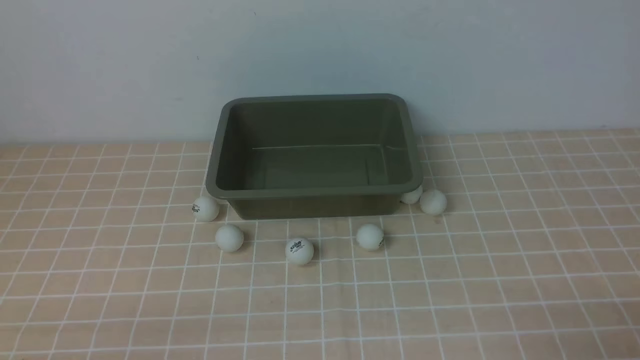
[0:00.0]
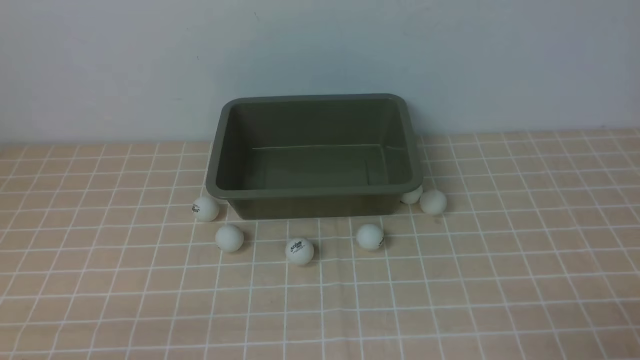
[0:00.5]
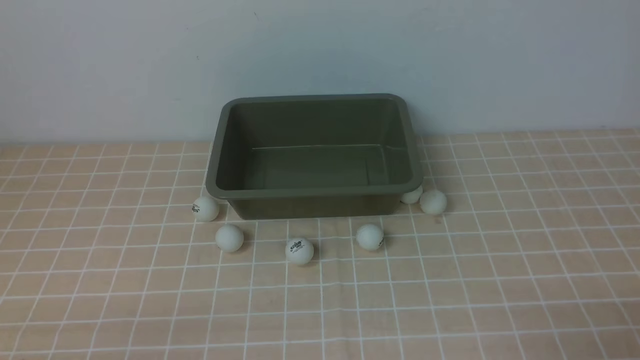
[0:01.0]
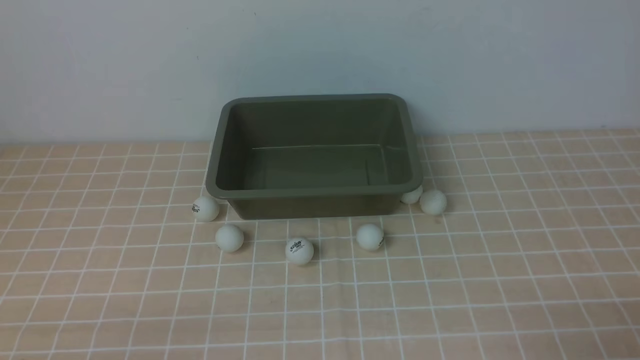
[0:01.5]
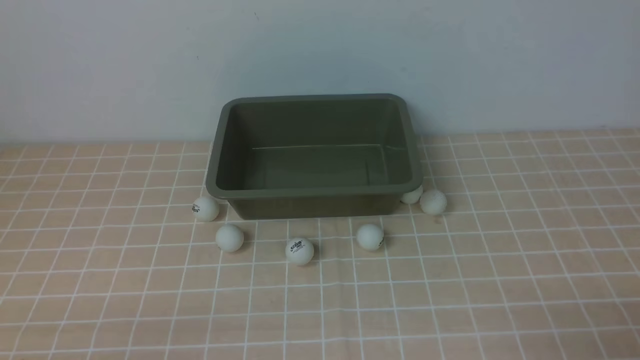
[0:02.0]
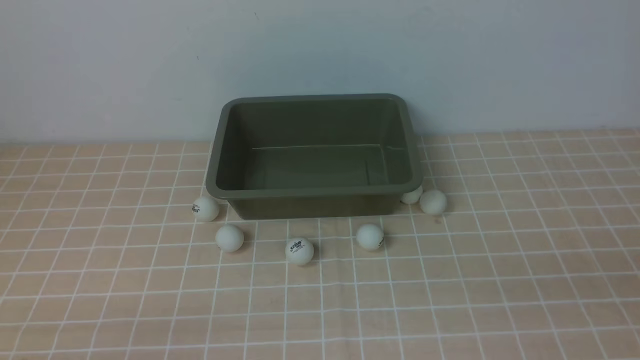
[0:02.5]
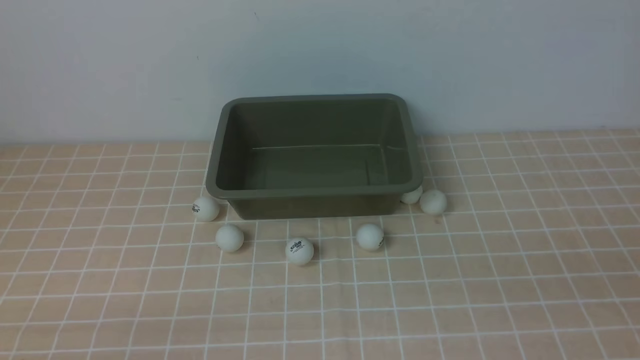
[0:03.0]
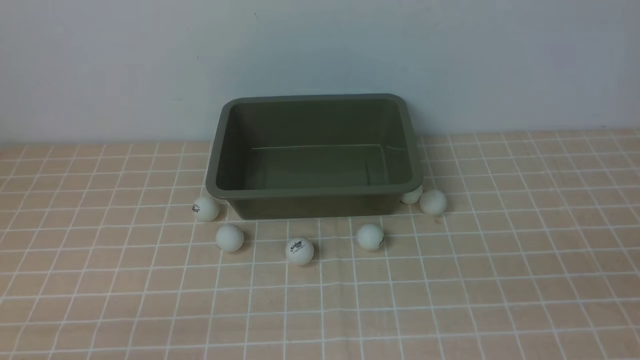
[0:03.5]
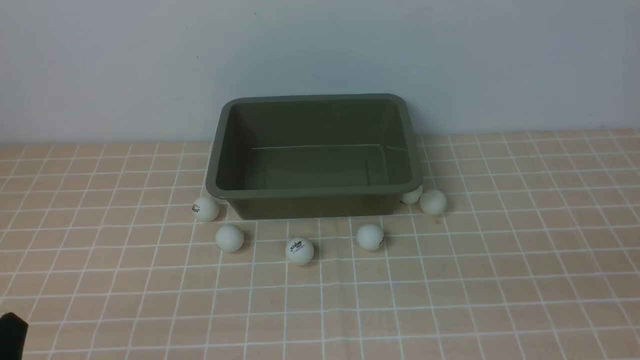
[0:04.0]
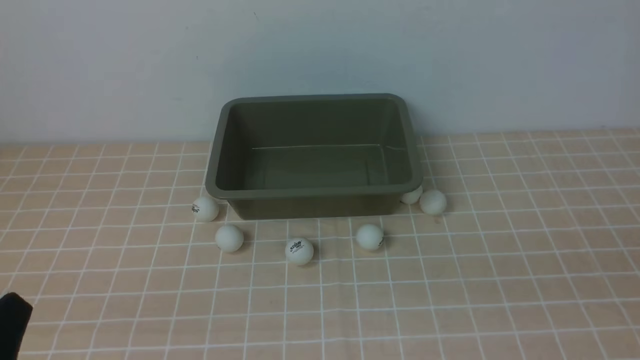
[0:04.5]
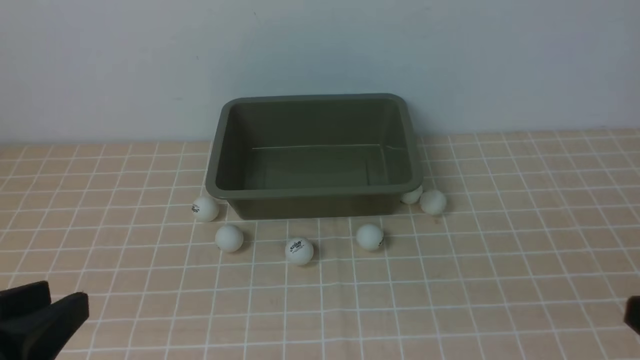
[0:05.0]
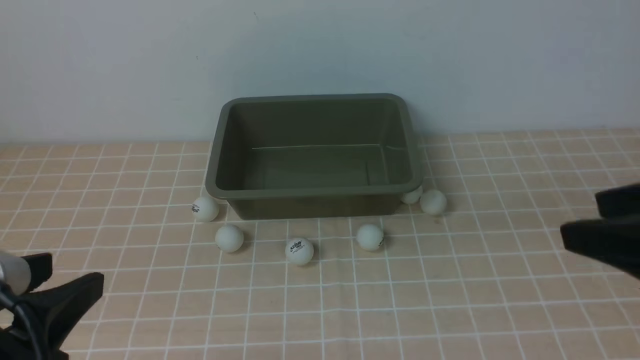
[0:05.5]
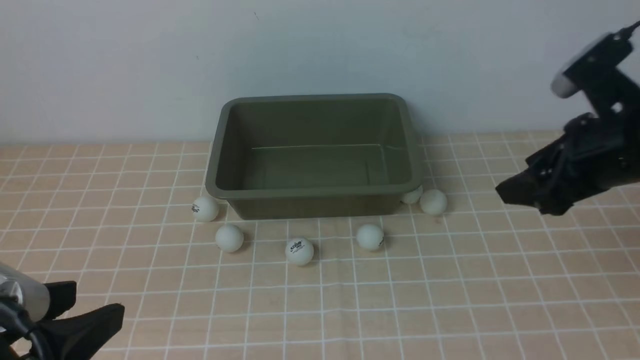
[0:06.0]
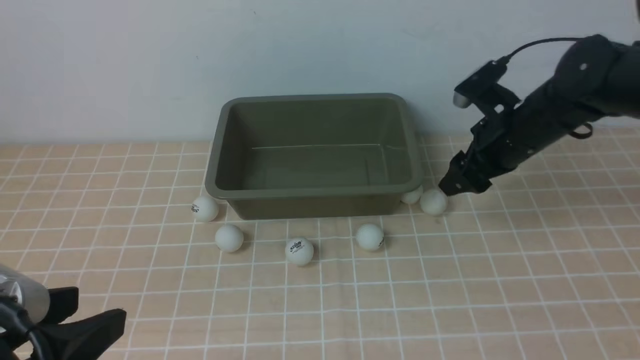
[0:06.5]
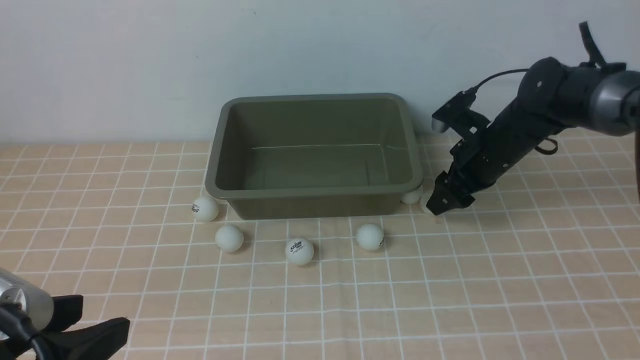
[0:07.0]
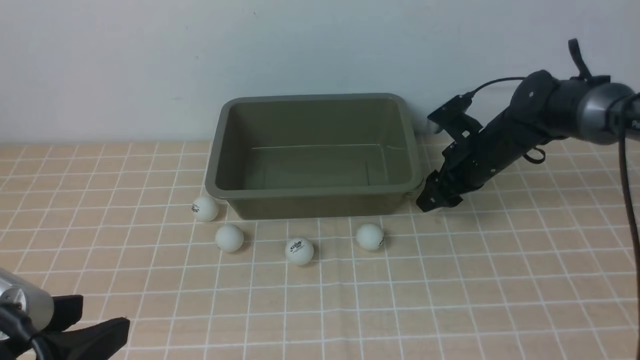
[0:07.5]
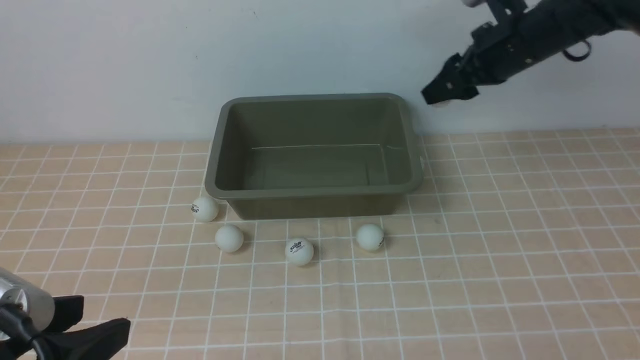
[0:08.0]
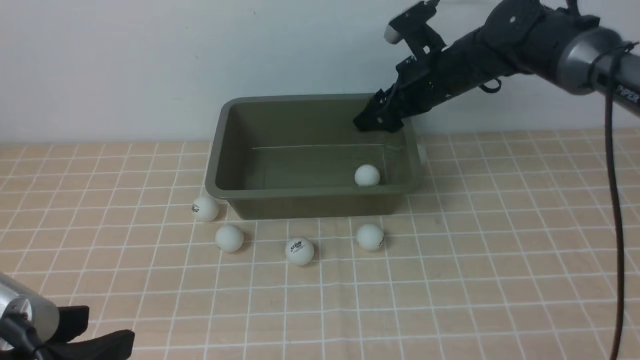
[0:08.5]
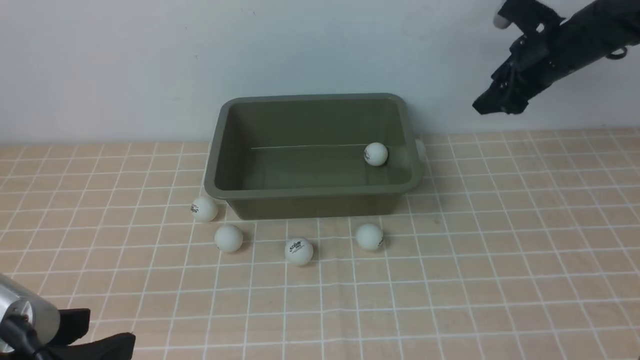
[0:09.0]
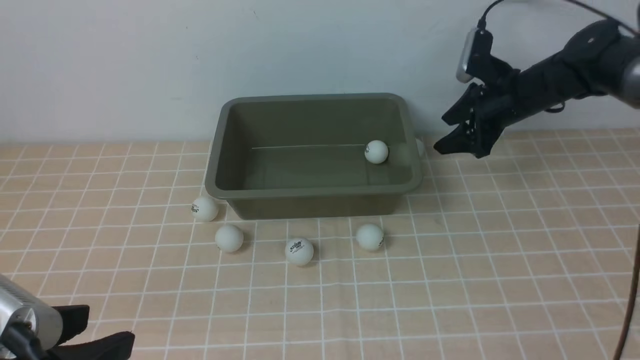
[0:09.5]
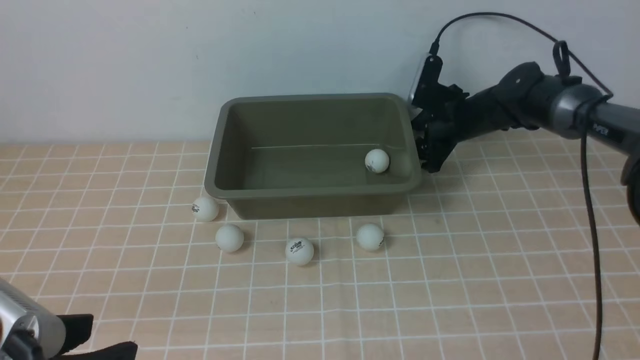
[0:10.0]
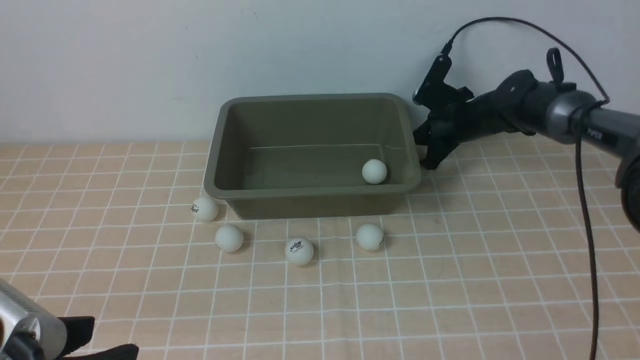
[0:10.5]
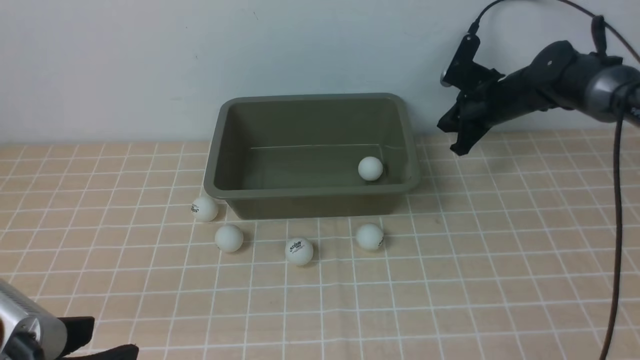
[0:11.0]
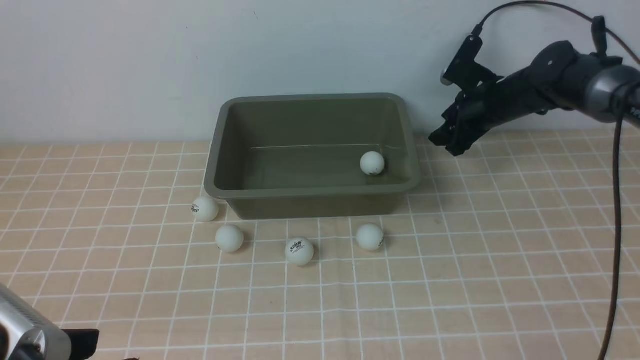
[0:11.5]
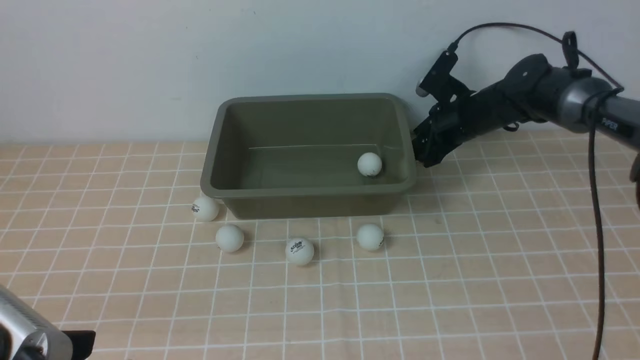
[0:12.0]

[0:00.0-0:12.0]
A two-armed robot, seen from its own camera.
Step, 0:00.0 to 0:07.5: use the right arm to clamp the table tennis ball closest to it.
Step, 0:08.0 to 0:08.5: use the right arm to put the table tennis ball into the box.
0:00.0 to 0:02.0: Both grippers stay about where they are.
0:04.0 to 0:06.0: The right gripper is displaced forward by approximately 30 cm, and opens its fingers. The left gripper is displaced upward by approximately 10 cm, and opens up.
0:06.0 to 0:08.0: The right gripper moves forward, roughly 15 cm.
0:08.0 to 0:10.0: The right gripper travels downward and forward by about 15 cm.
0:10.0 to 0:12.0: The right gripper closes, then opens again.

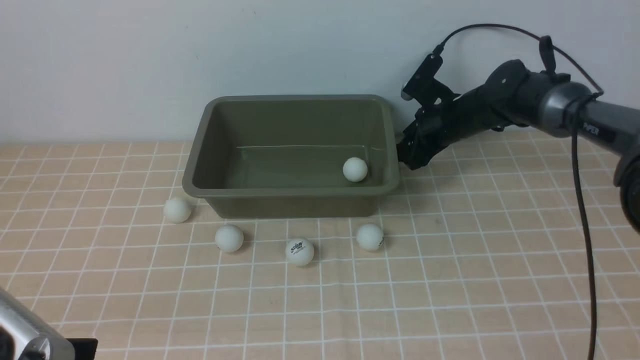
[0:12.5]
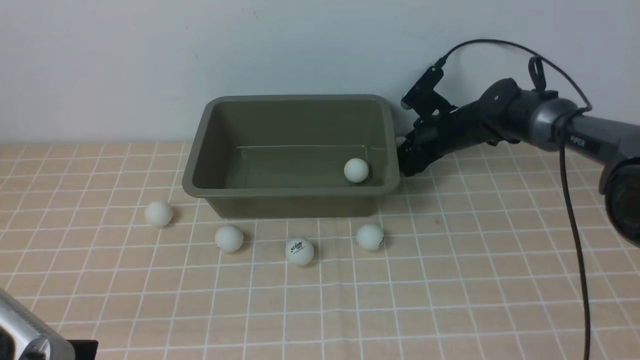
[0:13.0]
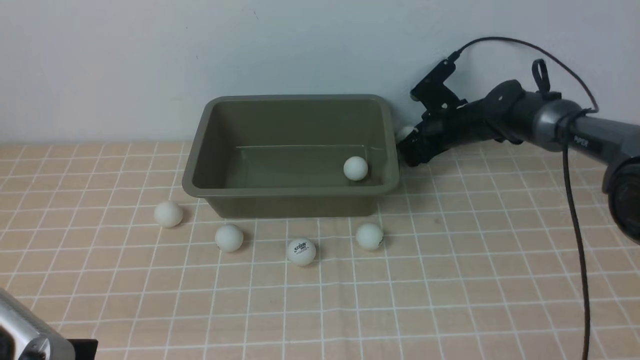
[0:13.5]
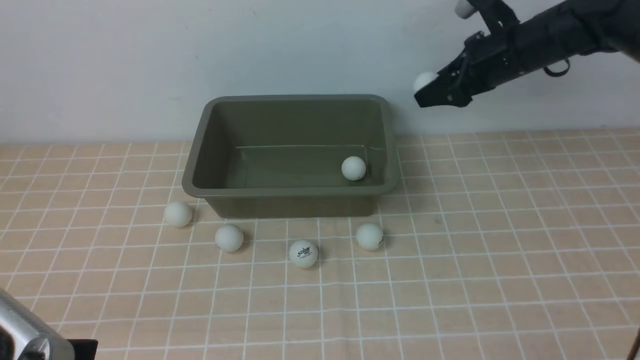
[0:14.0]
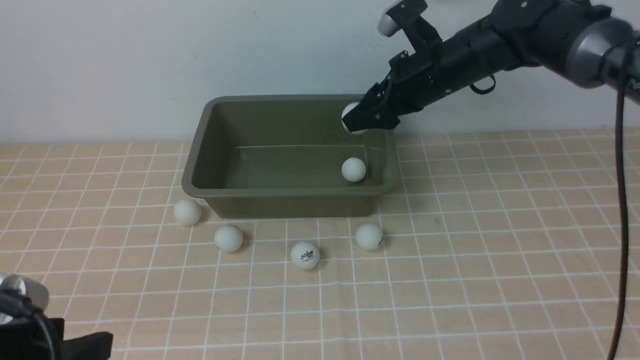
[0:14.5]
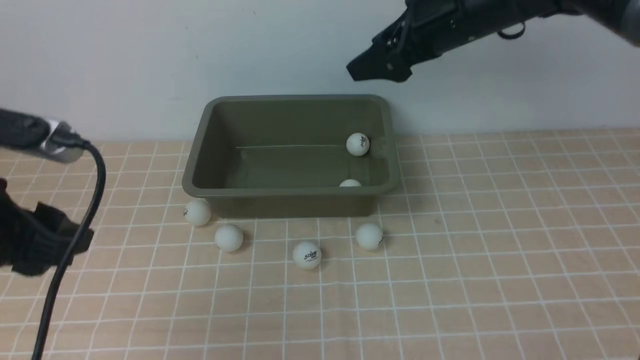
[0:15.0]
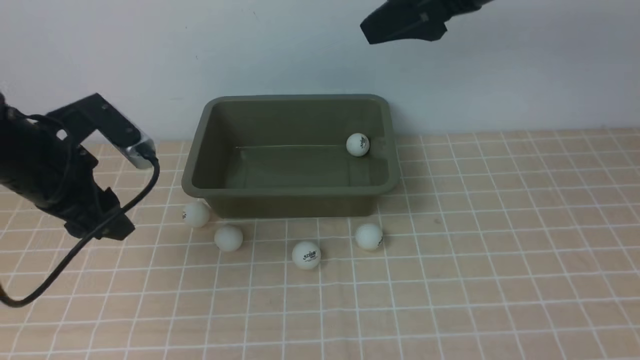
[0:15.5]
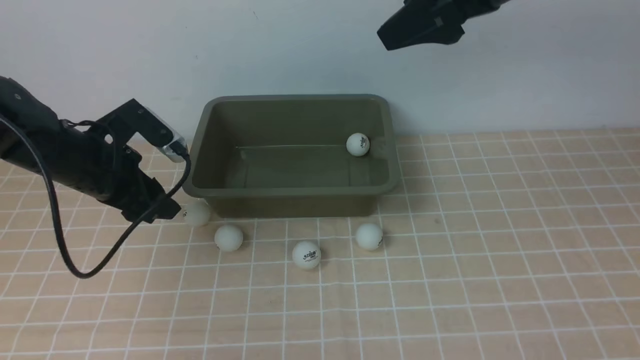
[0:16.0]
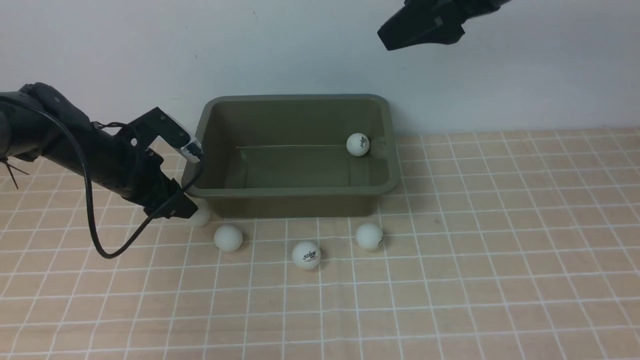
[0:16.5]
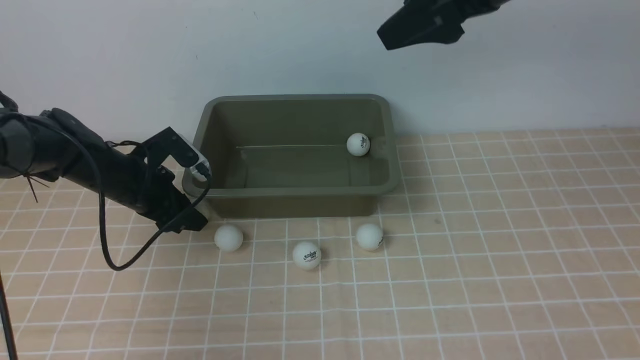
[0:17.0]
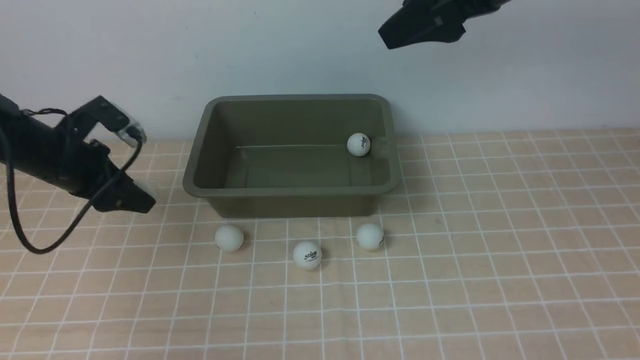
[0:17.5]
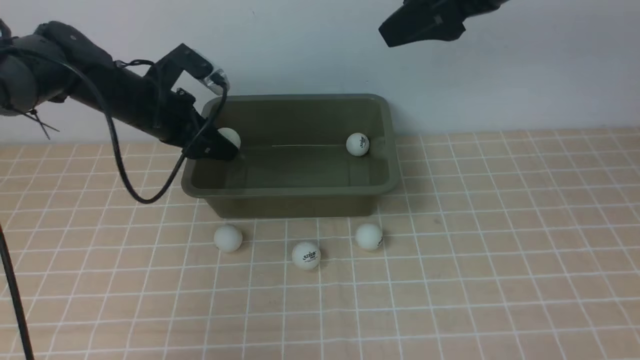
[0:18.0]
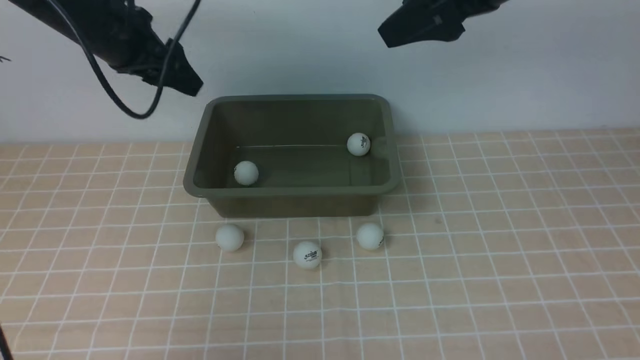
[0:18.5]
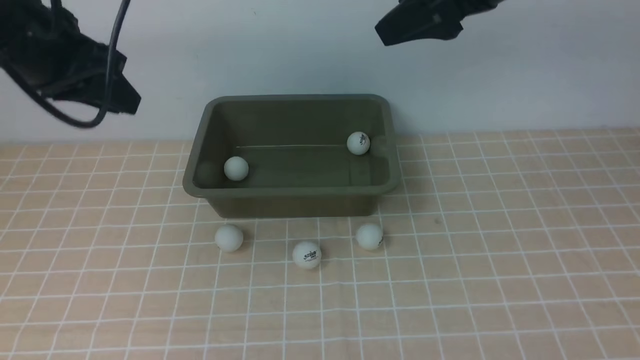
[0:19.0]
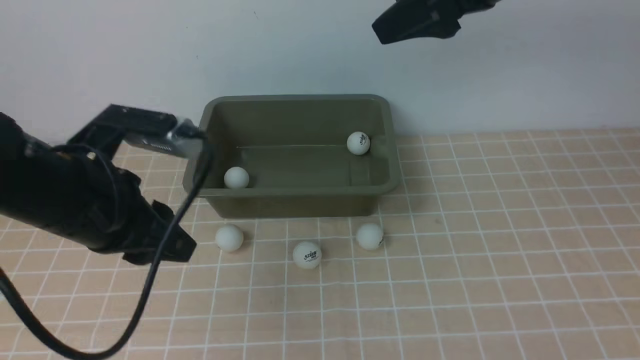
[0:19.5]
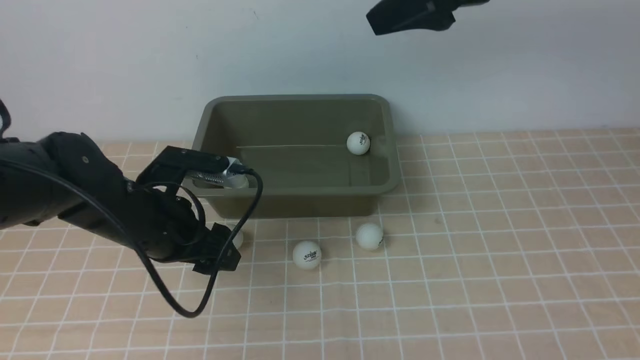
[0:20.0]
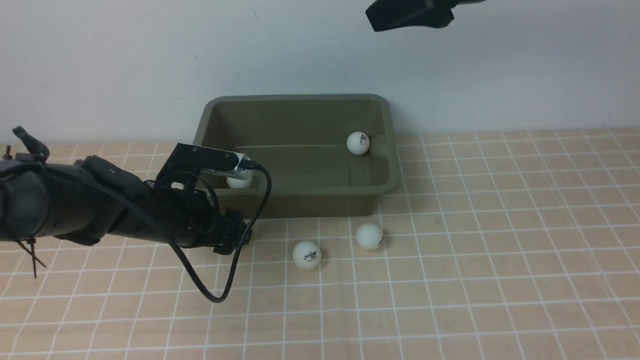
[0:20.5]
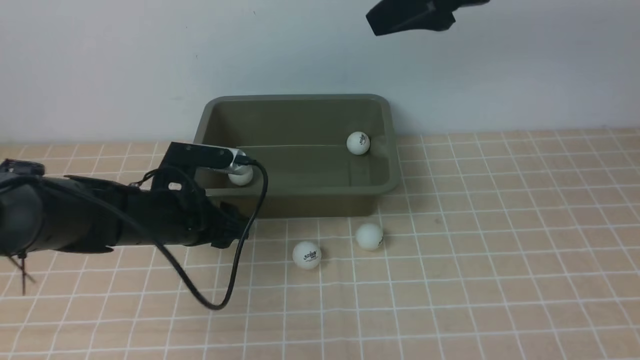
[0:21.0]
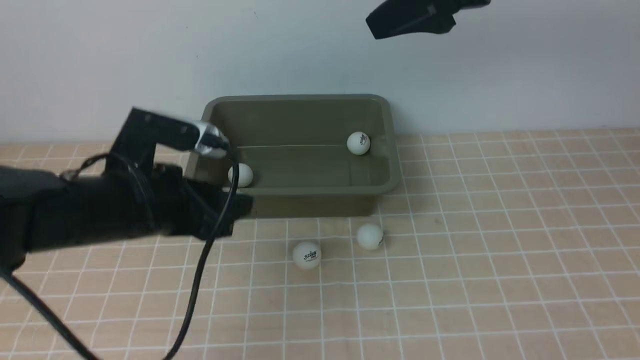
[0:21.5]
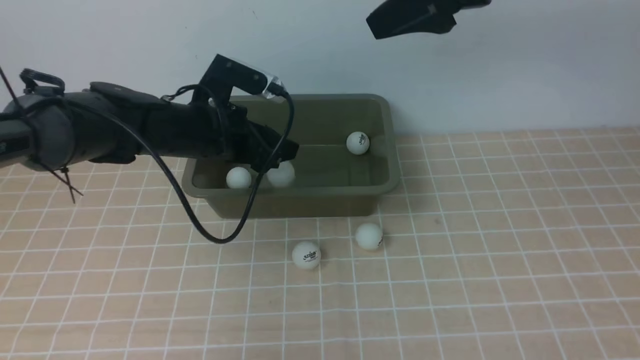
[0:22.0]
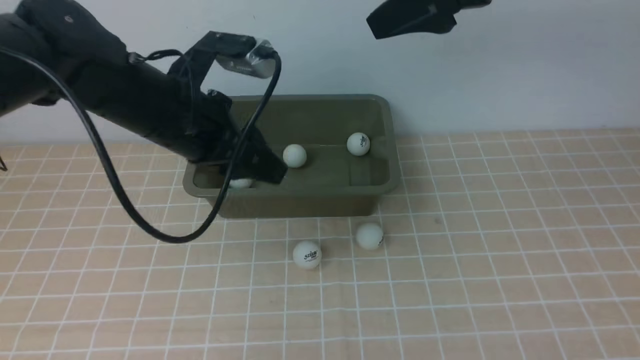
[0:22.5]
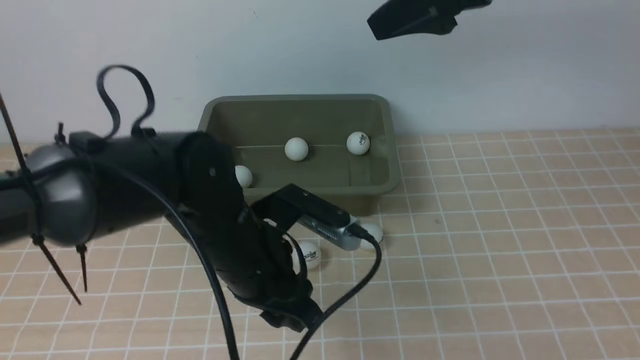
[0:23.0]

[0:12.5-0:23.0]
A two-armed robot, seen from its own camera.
Step, 0:14.0 to 0:14.5: use the right arm to put the table tennis ball into the box.
Step, 0:15.0 to 0:17.0: use the left arm to clamp the table tennis ball closest to it.
Step, 0:18.0 to 0:19.0: use the left arm to put the table tennis ball into the box.
Step, 0:19.5 to 0:21.0: use the left arm to clamp the table tennis ball closest to it.
Step, 0:21.5 to 0:22.0: use the left arm to put the table tennis ball into the box.
0:12.5 to 0:14.5: The right gripper is displaced upward and backward by roughly 15 cm.
0:14.5 to 0:16.5: The right gripper heads upward and backward, covering roughly 15 cm. Meanwhile the left gripper moves forward, some 30 cm.
0:16.5 to 0:19.0: The left gripper goes about 20 cm upward and backward, and closes up.
0:19.0 to 0:21.0: The left gripper goes roughly 20 cm downward, and opens up.
0:21.0 to 0:23.0: The left gripper is displaced to the right and upward by about 10 cm.
